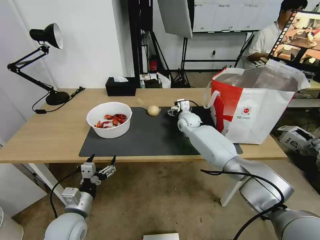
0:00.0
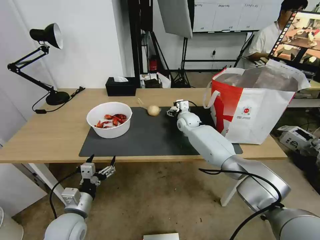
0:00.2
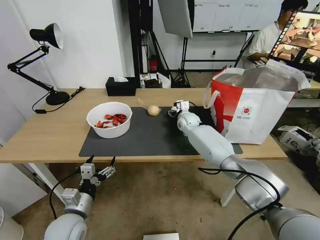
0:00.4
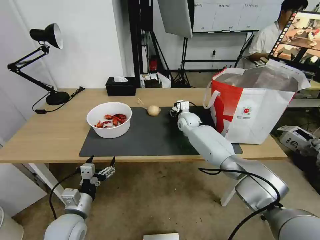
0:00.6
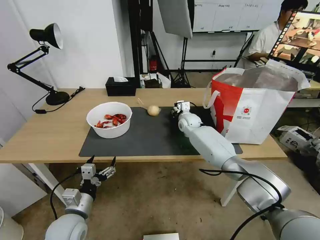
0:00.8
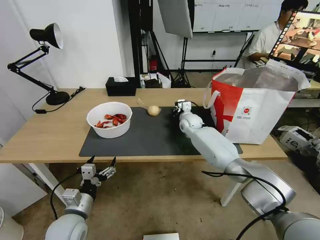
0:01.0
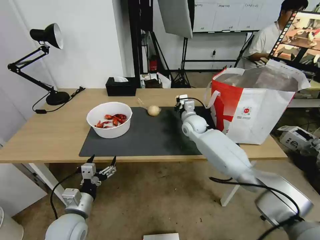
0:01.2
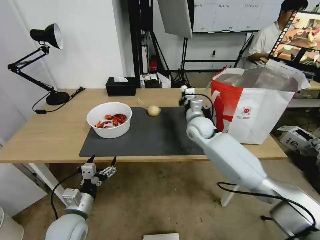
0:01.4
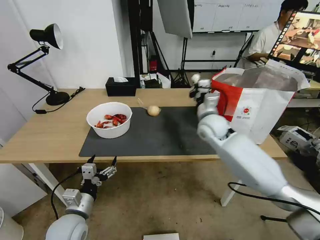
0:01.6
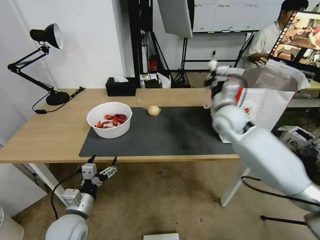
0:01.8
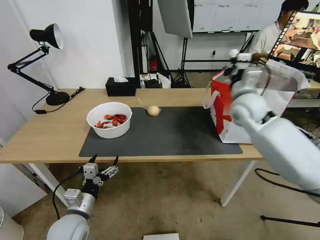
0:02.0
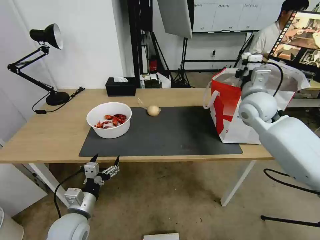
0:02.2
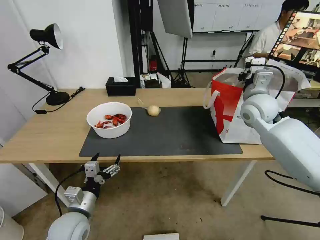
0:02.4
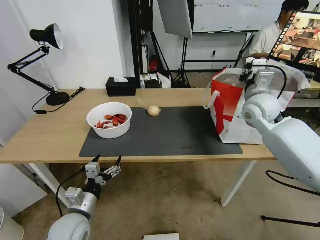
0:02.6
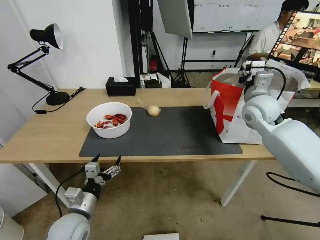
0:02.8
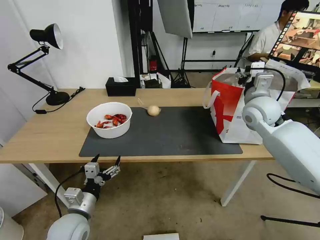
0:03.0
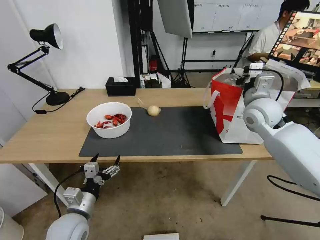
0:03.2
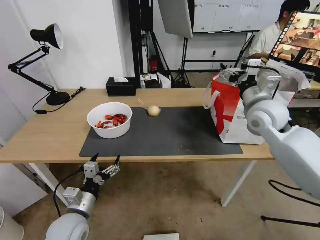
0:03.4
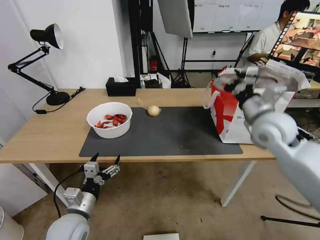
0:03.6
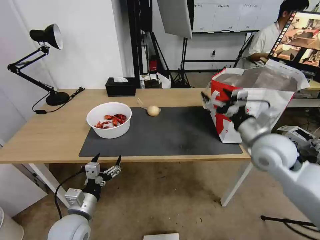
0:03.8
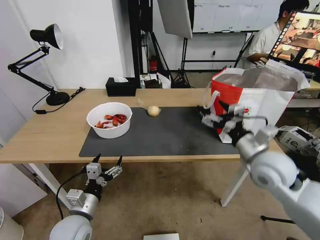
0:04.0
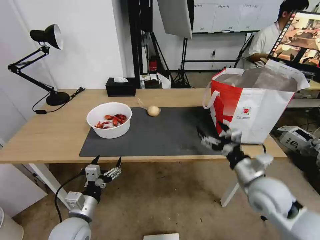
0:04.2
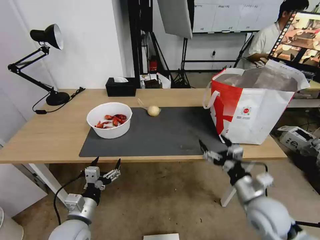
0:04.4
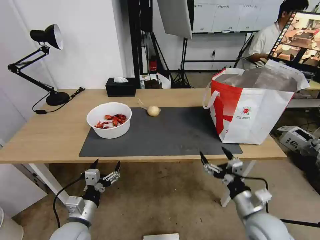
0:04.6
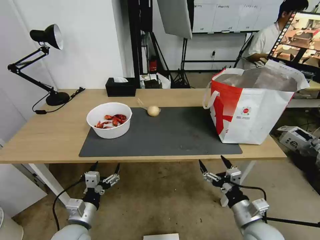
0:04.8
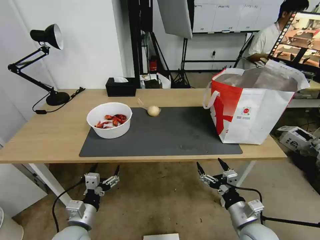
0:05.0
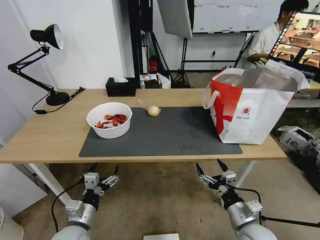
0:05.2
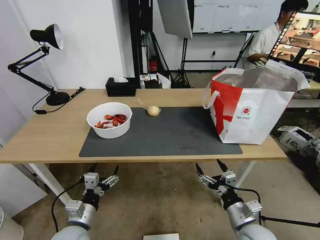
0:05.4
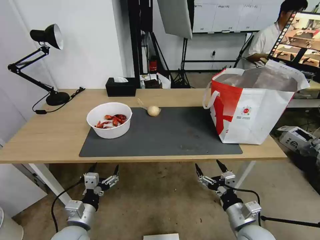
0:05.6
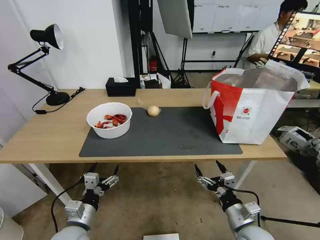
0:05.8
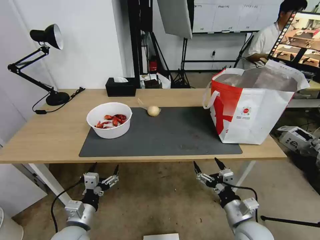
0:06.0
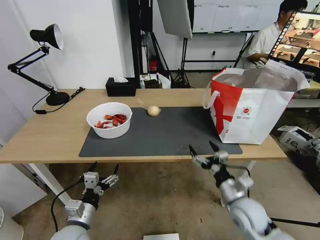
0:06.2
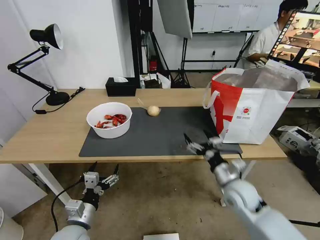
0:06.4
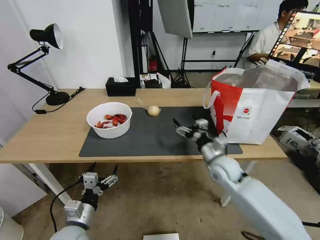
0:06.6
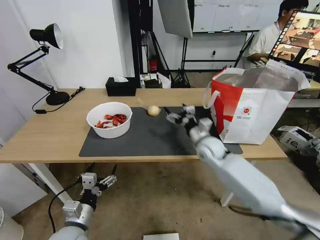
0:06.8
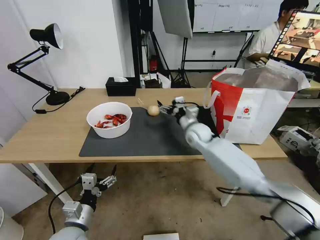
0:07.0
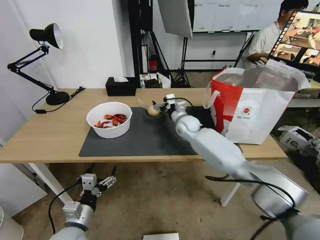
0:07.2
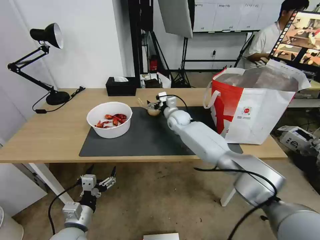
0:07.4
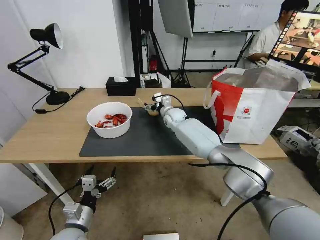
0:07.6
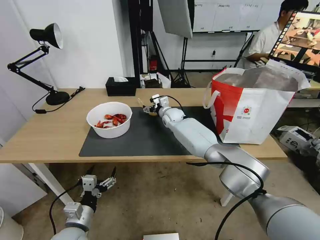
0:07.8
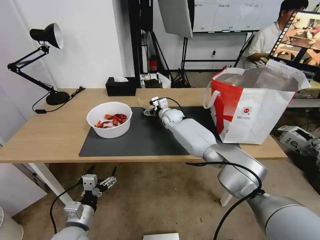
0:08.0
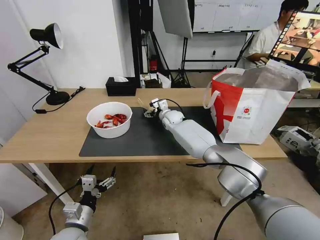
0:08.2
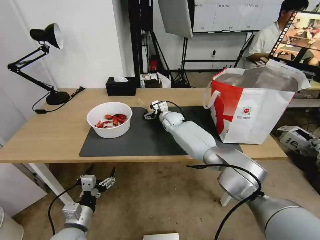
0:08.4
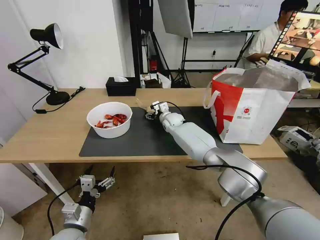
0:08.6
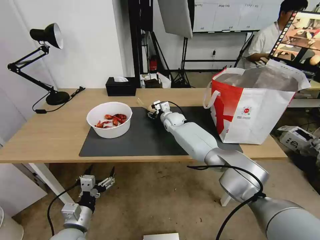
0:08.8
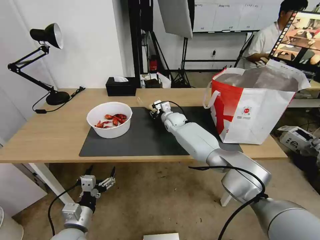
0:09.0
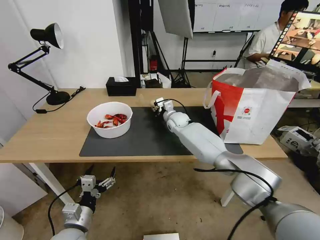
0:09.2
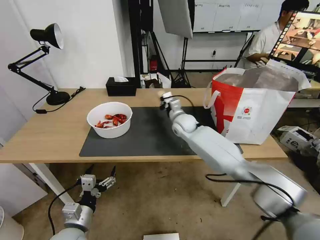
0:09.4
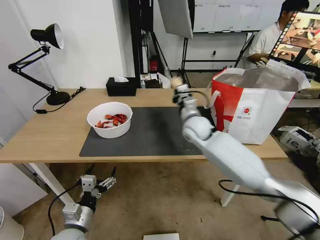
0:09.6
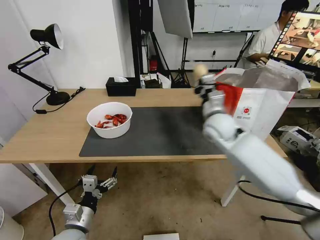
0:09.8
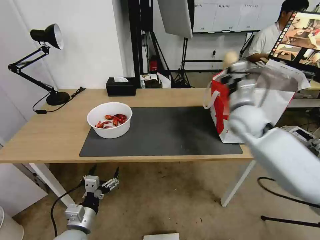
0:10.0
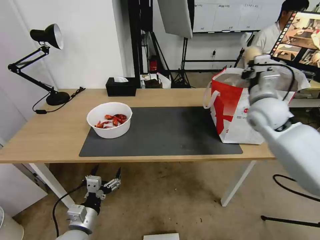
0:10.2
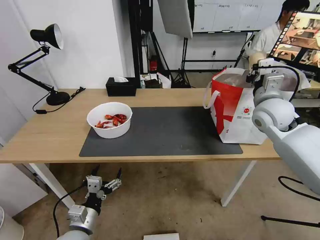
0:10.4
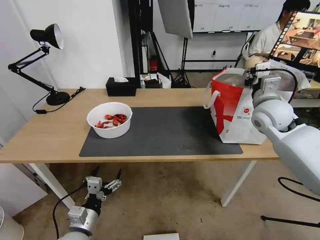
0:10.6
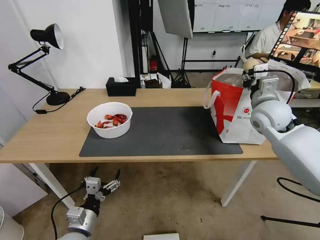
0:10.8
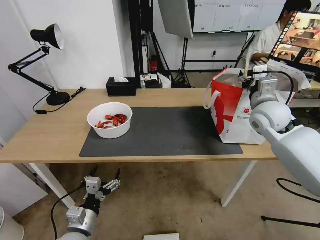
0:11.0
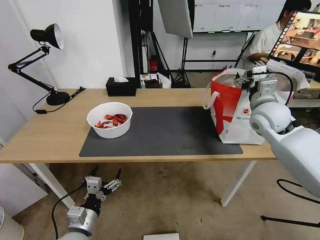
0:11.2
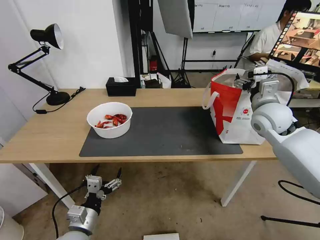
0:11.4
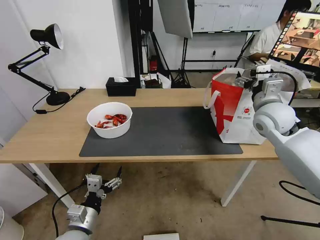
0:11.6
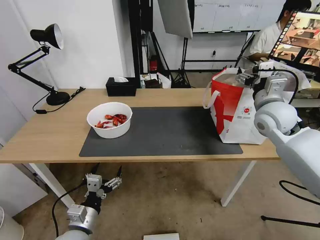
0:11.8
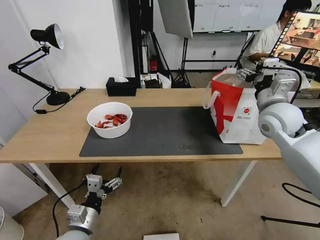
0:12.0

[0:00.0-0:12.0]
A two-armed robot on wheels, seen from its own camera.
Task of the whole recording: Pick up the trash from the table and place it into the takeout bag.
0:00.0 to 0:01.6: The right gripper shifts roughly 15 cm backward and upward, and closes.
0:01.6 to 0:03.0: The right gripper moves to the right and upward, approximately 15 cm, and opens up.
0:03.0 to 0:04.4: The right gripper is displaced backward and downward by approximately 30 cm.
0:04.4 to 0:06.0: The right gripper heads downward, covering approximately 5 cm.
0:06.0 to 0:07.6: The right gripper moves forward and to the left, some 50 cm.
0:07.6 to 0:09.0: The right gripper closes up.
0:09.0 to 0:10.4: The right gripper shifts approximately 35 cm to the right, upward and backward.
0:10.4 to 0:12.0: The right gripper opens its fingers.

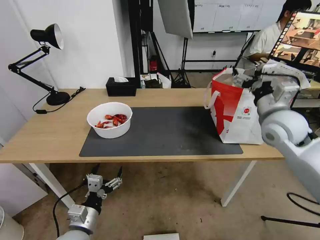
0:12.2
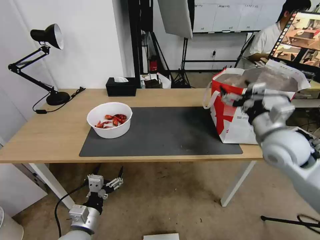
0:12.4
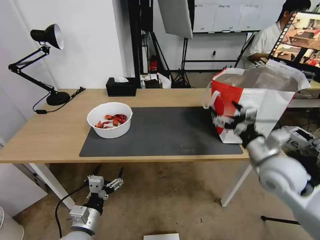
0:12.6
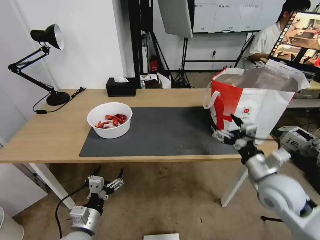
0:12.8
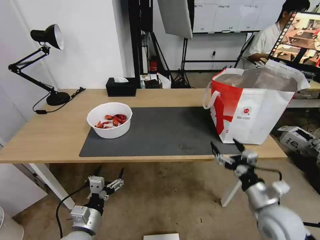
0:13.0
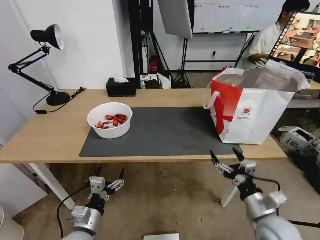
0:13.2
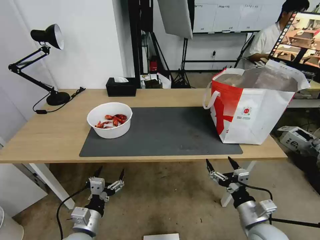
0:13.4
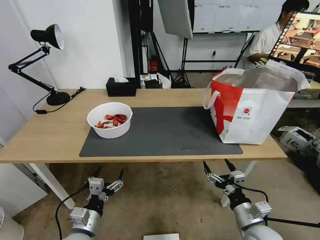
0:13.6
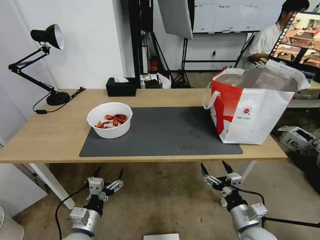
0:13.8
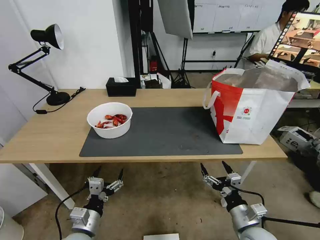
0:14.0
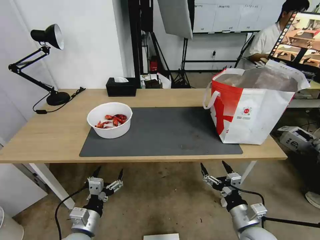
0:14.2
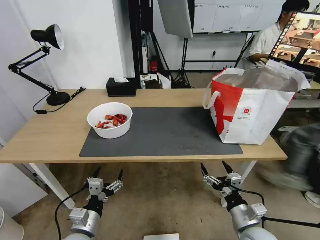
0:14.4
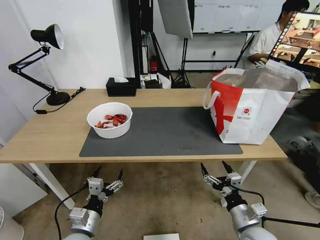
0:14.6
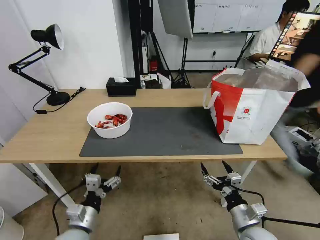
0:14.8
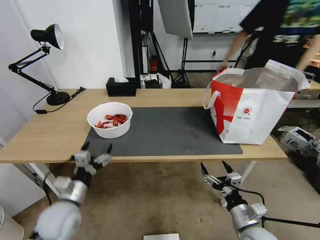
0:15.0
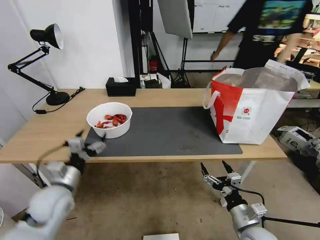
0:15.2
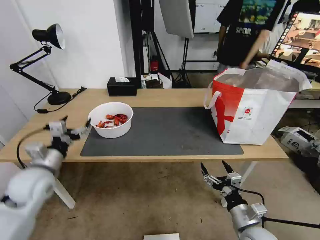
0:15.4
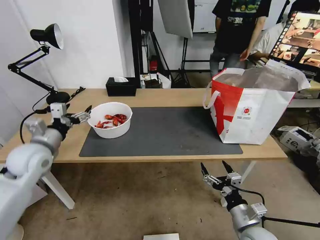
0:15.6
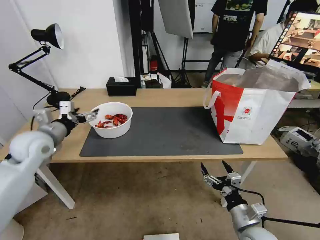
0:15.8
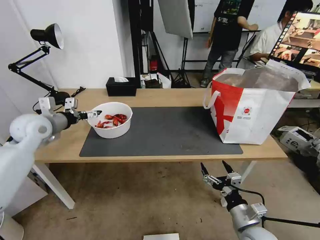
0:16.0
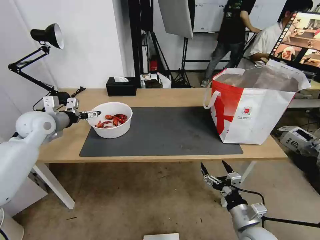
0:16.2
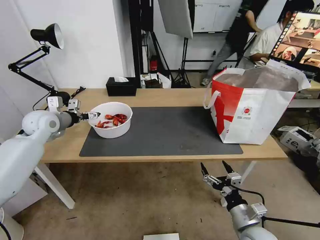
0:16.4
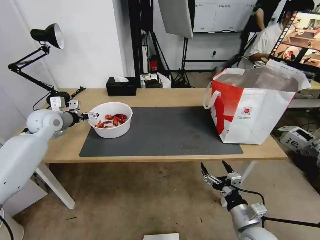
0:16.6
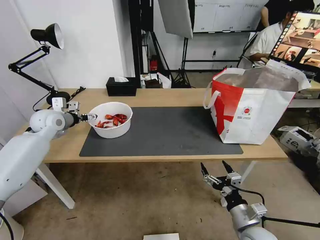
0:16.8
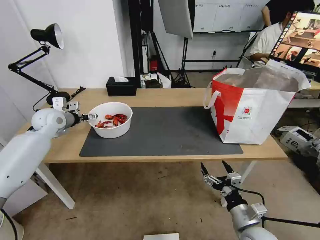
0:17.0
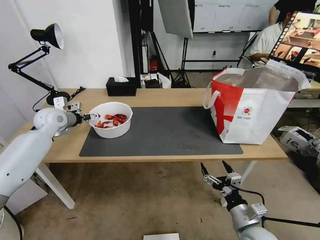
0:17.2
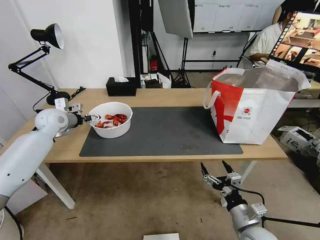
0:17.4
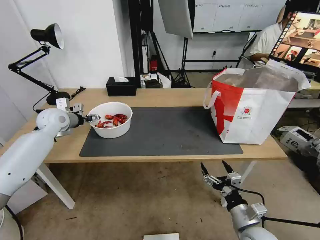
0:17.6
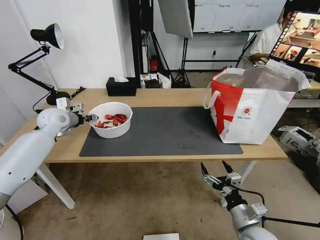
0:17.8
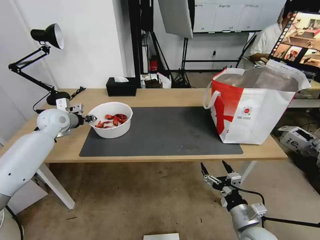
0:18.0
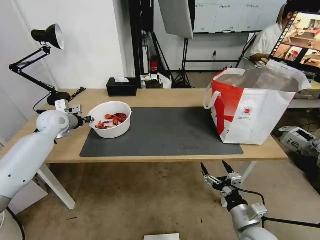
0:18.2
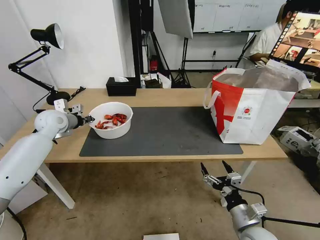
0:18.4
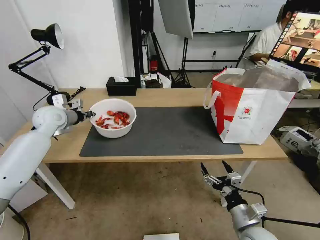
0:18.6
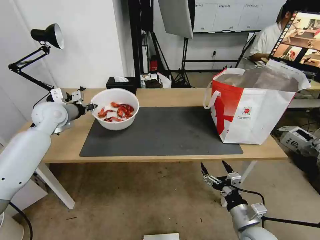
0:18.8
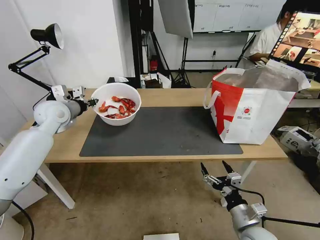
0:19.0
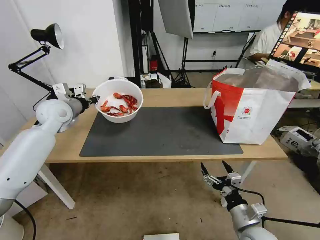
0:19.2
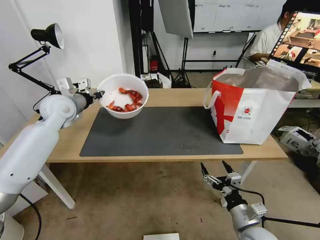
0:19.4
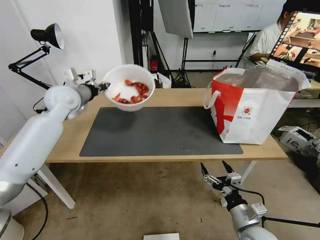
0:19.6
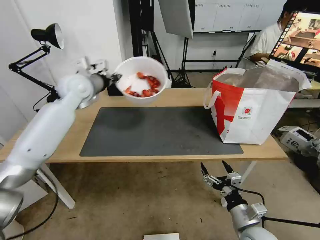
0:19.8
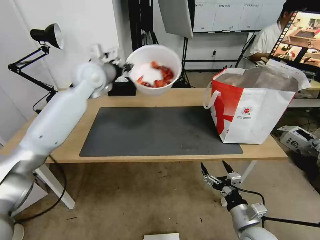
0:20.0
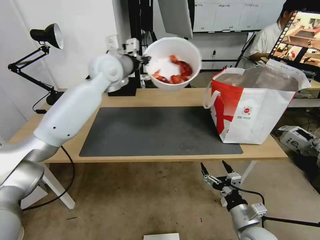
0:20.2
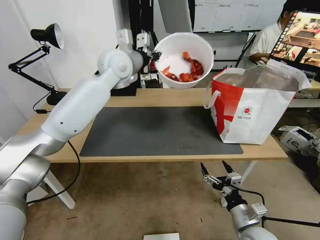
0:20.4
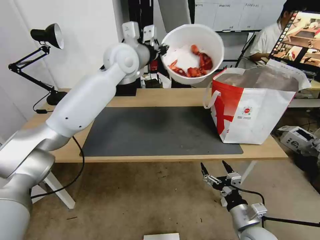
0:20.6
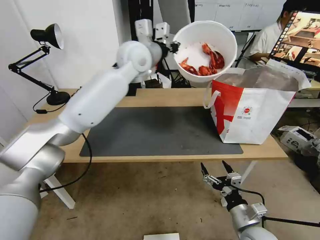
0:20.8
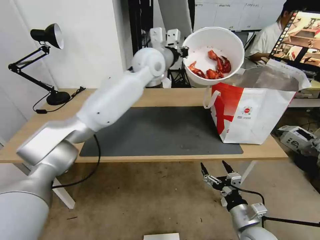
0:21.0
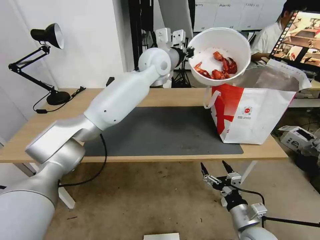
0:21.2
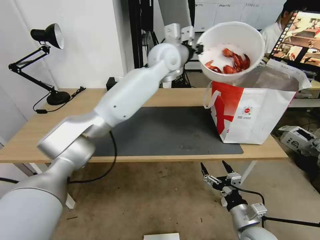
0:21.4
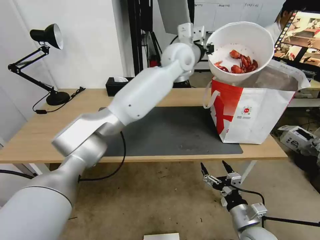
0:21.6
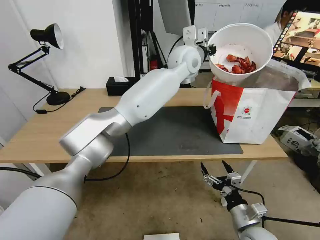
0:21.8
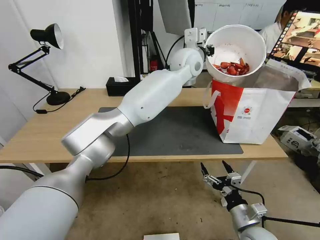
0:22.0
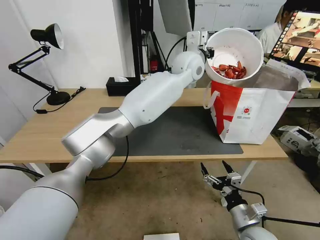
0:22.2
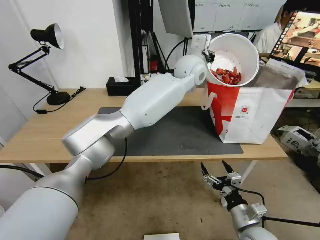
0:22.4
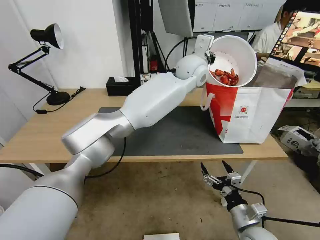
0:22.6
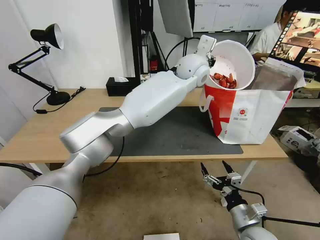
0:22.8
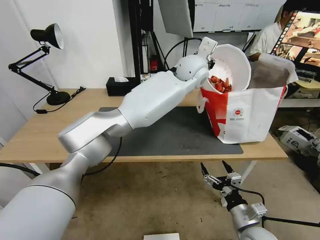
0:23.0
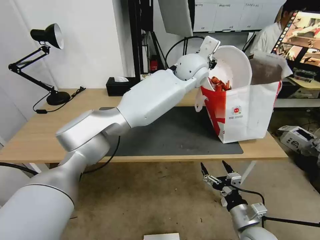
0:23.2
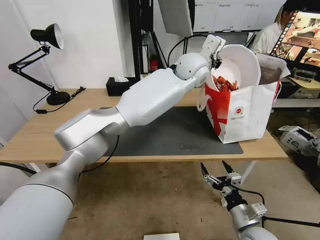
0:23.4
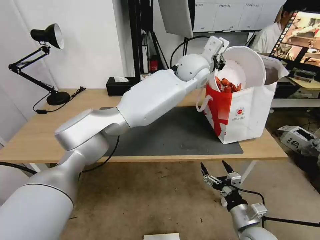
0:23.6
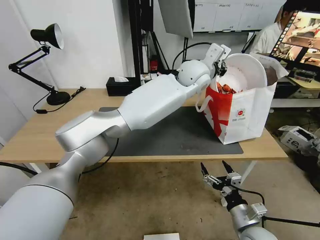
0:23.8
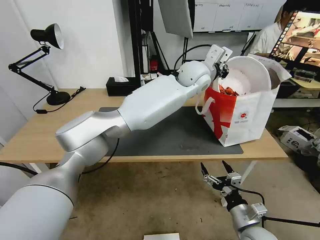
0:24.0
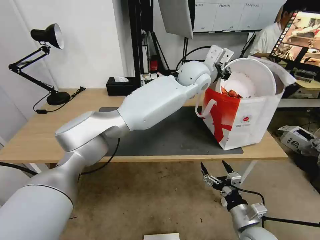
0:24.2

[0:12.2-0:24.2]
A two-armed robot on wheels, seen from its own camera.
Task of the whole recording: Pick up the trash from the table and place it into the takeout bag.
0:12.2 to 0:13.8: The right gripper heads downward and backward, covering approximately 35 cm.
0:13.8 to 0:15.2: The left gripper shifts about 15 cm forward, upward and to the left.
0:15.2 to 0:16.6: The left gripper travels forward and upward by roughly 25 cm.
0:16.6 to 0:18.2: The left gripper closes.
0:18.2 to 0:19.8: The left gripper travels upward and to the right by roughly 20 cm.
0:19.8 to 0:21.2: The left gripper shifts roughly 25 cm to the right.
0:21.2 to 0:22.6: The left gripper is displaced to the right by roughly 10 cm.
